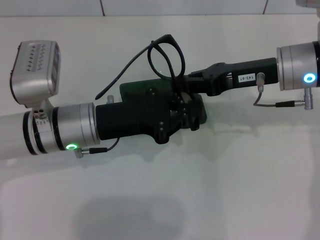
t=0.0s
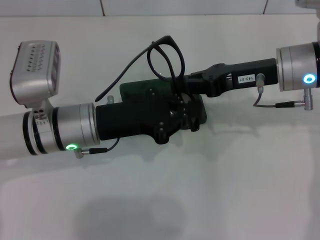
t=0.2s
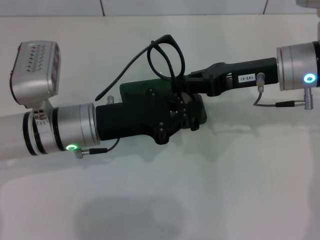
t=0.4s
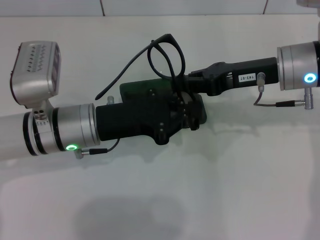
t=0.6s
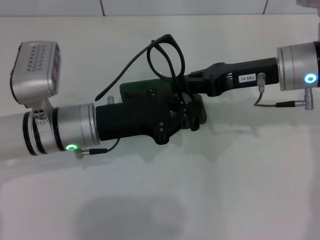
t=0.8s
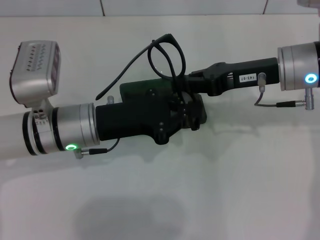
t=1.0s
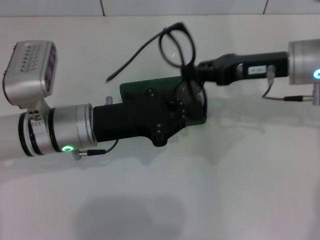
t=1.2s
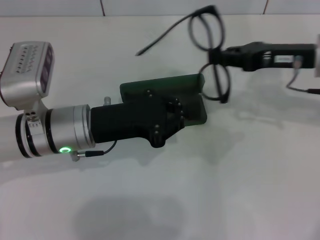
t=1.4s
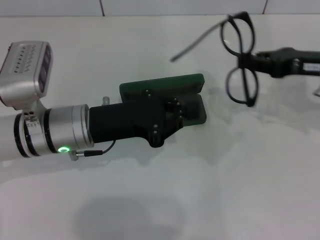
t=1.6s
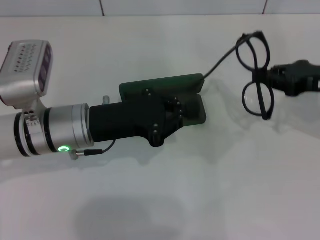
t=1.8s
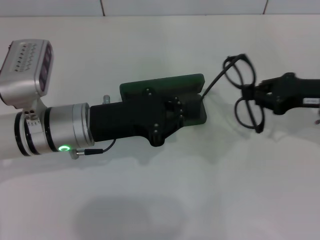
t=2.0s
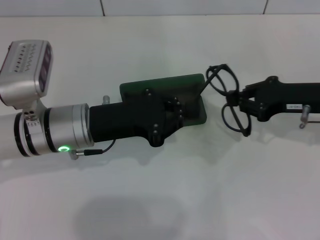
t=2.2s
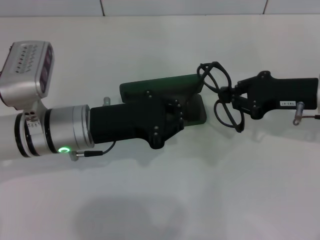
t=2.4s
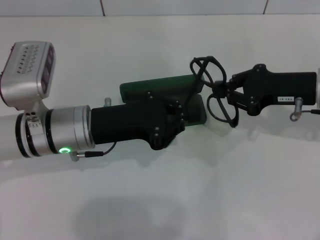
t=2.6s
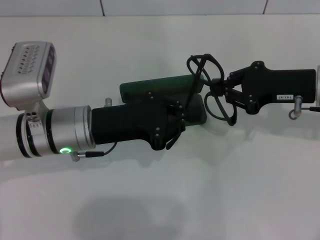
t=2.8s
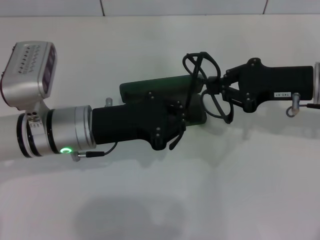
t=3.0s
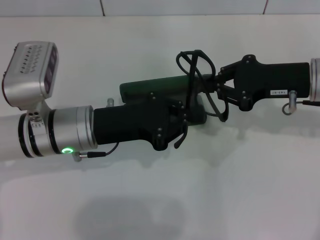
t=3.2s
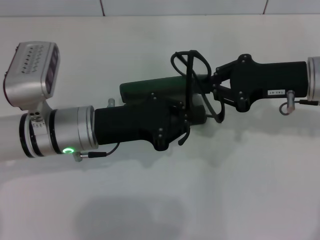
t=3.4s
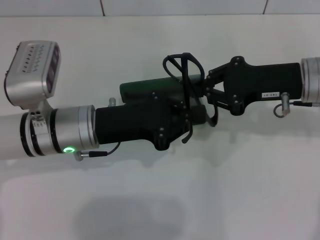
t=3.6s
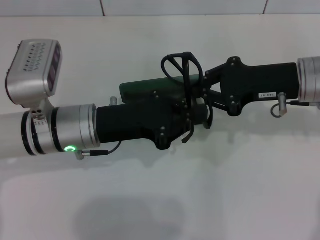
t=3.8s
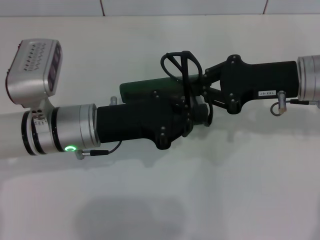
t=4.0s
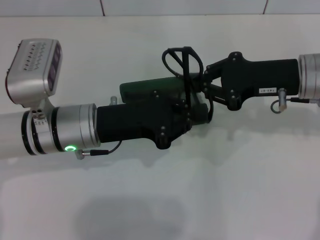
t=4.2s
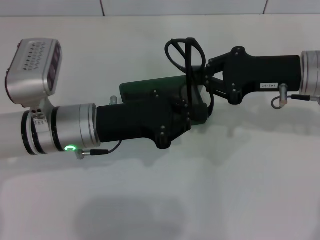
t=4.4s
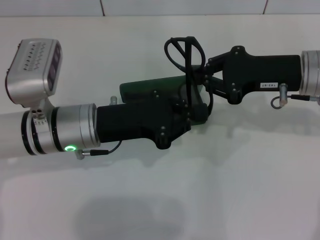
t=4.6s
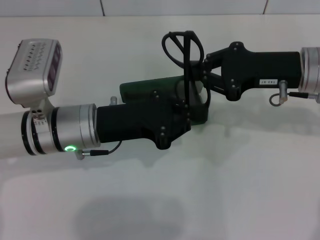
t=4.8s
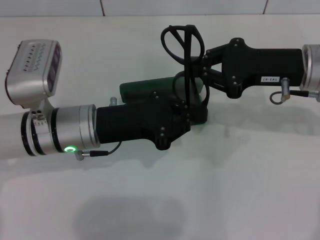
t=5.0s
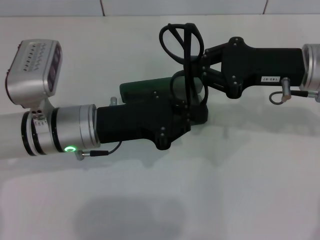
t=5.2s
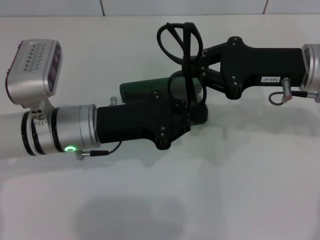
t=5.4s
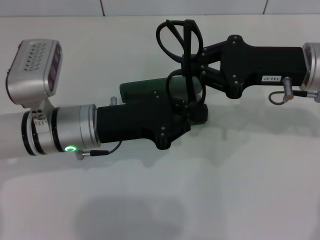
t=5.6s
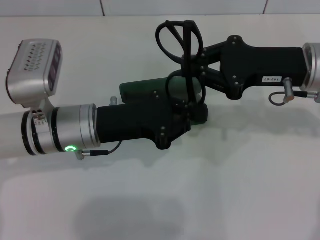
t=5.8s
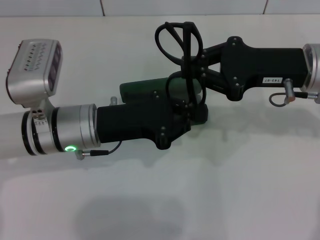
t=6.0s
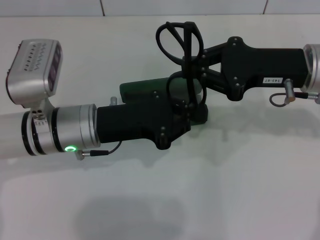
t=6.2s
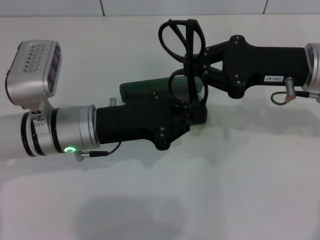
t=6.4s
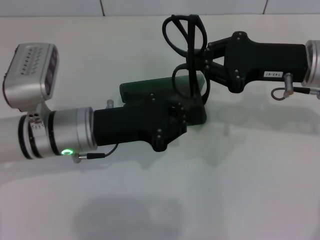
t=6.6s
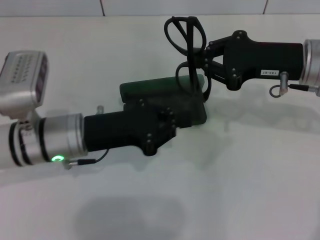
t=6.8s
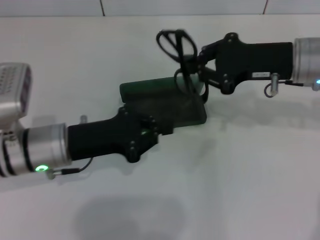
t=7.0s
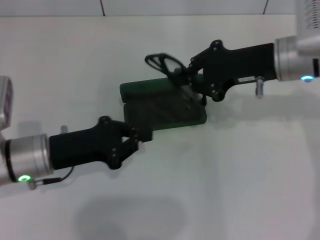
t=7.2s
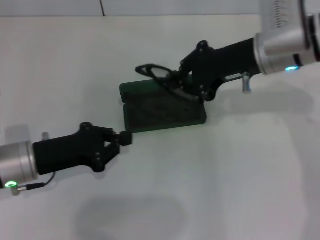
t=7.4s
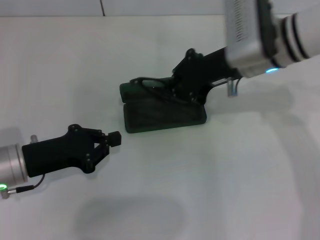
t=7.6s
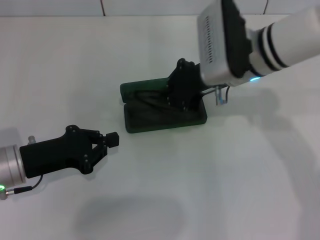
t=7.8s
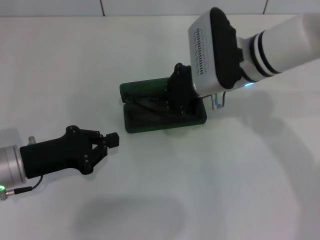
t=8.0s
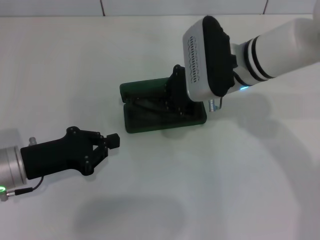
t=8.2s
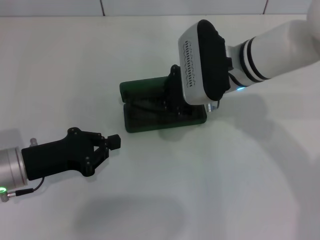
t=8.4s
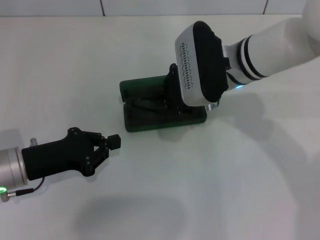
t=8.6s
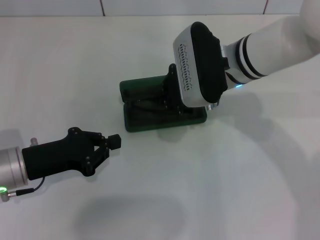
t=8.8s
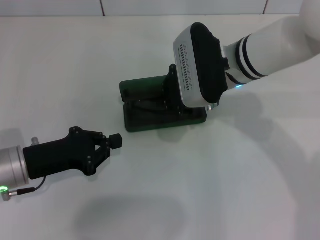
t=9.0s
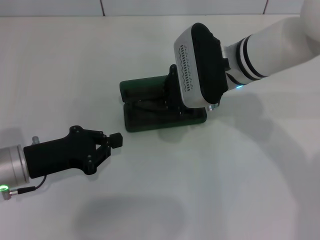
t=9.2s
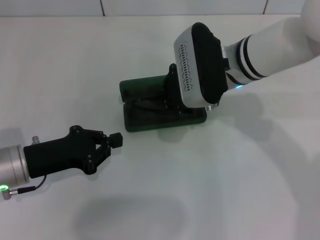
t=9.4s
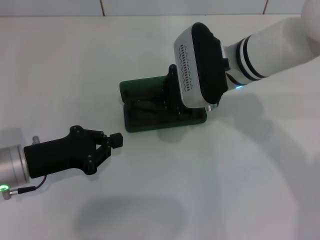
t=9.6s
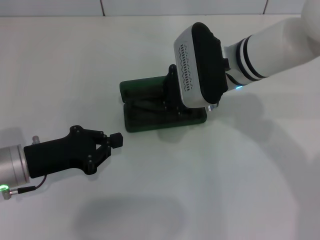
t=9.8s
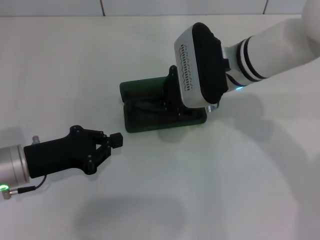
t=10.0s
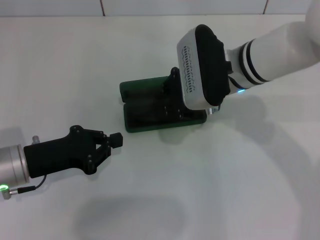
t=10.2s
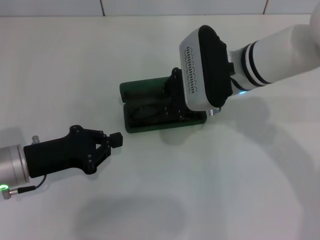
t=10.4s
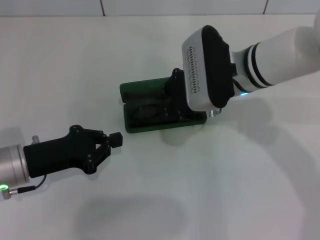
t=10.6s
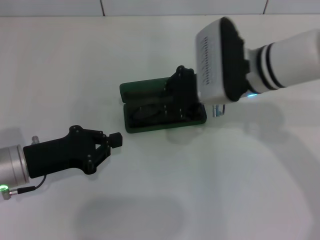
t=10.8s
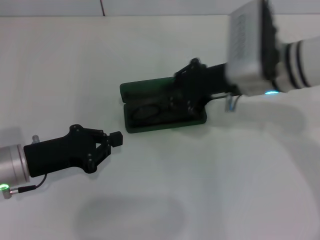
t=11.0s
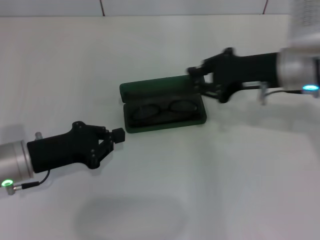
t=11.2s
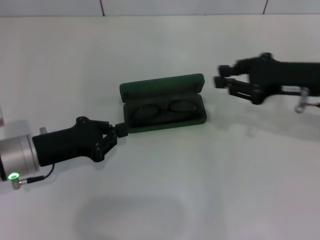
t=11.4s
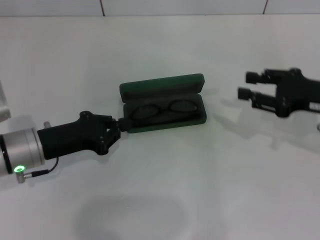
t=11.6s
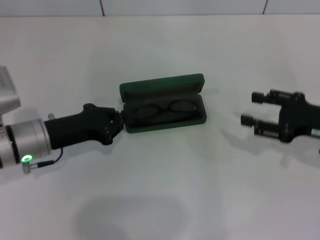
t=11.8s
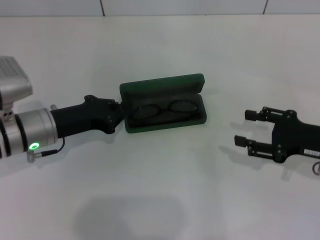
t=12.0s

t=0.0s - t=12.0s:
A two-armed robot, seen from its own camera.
Step, t=4.4s - t=10.8s: Put the glasses into the case with your right hand.
t=0.0s - t=1.6s: The right gripper shifts some 10 cm to the right.
t=1.6s - t=3.0s: The right gripper is displaced to the left by approximately 5 cm.
t=3.0s - t=6.0s: The grippers stay close to where they were, moving slightly.
t=6.0s - t=7.6s: The two grippers go some 10 cm to the left.
t=7.6s - t=9.0s: The right gripper shifts by about 5 cm.
t=9.0s - t=10.4s: Both grippers stay put.
t=10.4s - t=12.0s: The right gripper shifts about 20 cm to the right and backward, and opens; the left gripper moves forward, some 5 cm.

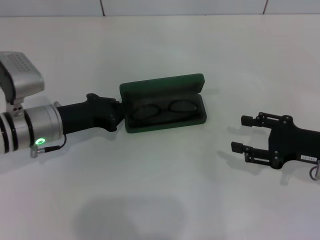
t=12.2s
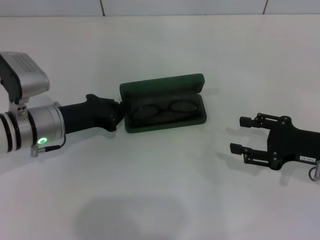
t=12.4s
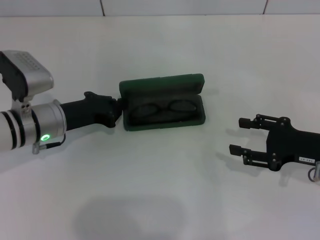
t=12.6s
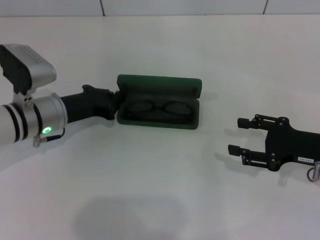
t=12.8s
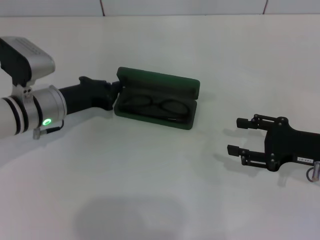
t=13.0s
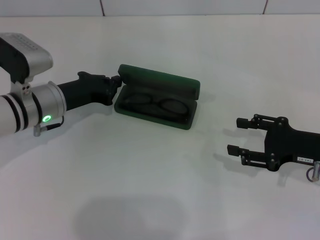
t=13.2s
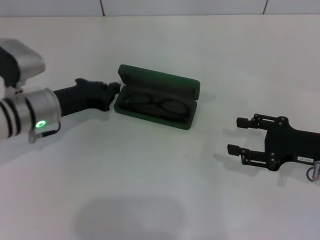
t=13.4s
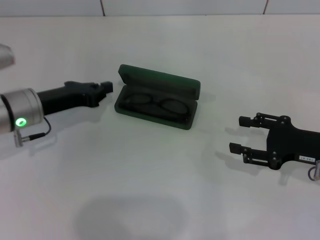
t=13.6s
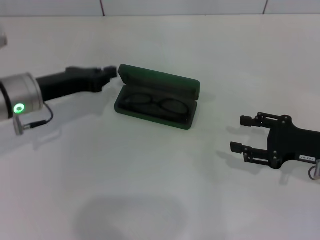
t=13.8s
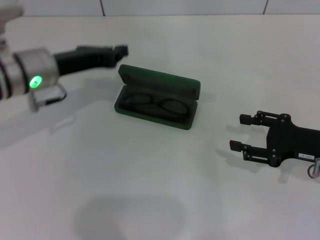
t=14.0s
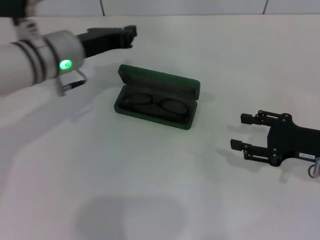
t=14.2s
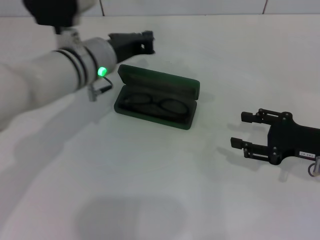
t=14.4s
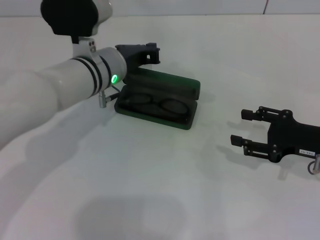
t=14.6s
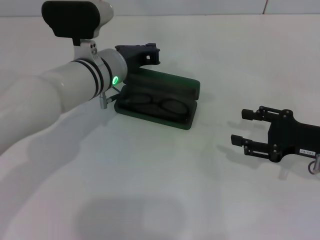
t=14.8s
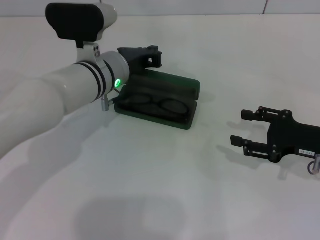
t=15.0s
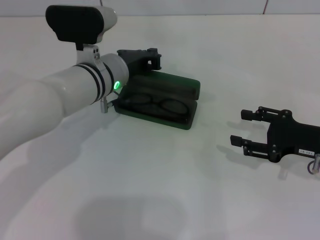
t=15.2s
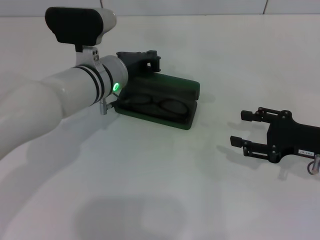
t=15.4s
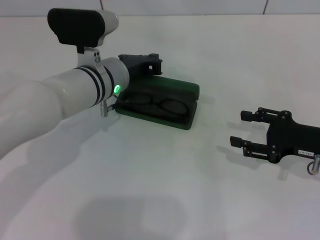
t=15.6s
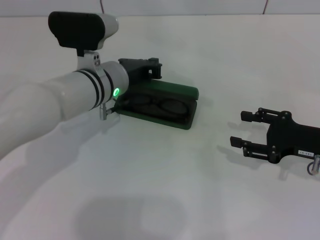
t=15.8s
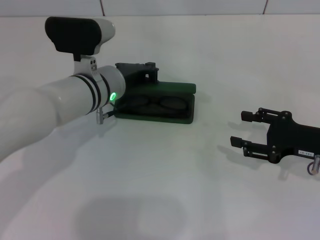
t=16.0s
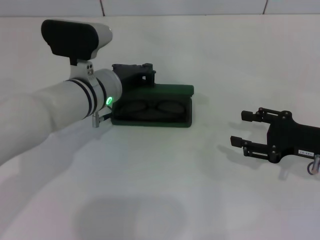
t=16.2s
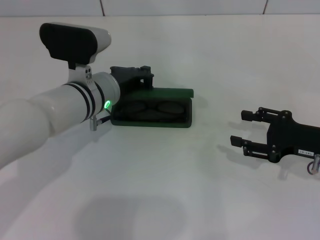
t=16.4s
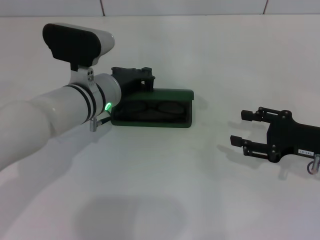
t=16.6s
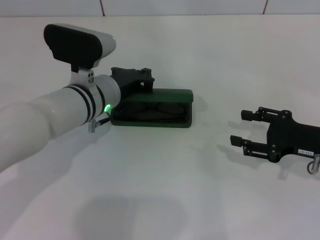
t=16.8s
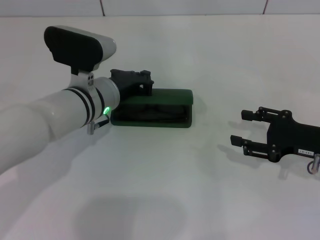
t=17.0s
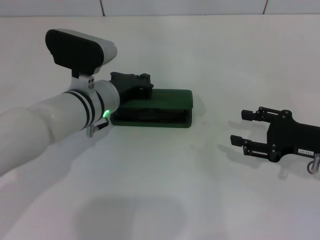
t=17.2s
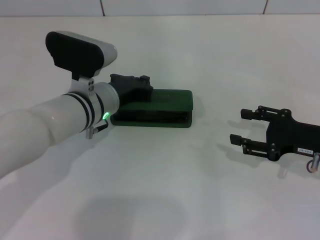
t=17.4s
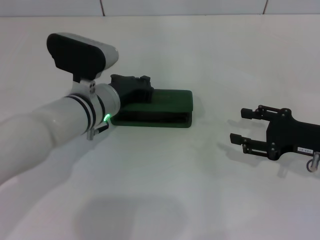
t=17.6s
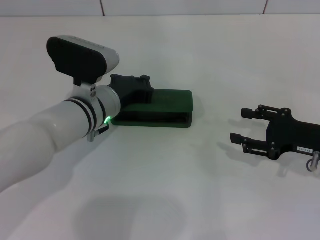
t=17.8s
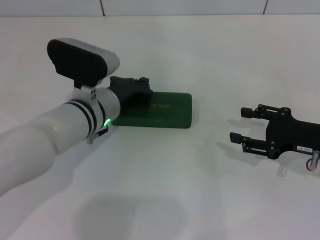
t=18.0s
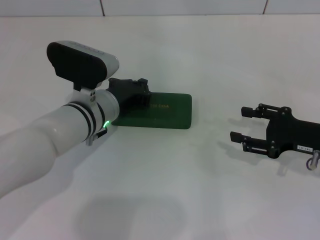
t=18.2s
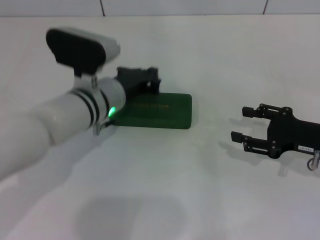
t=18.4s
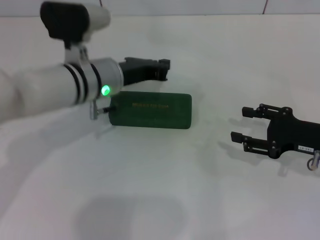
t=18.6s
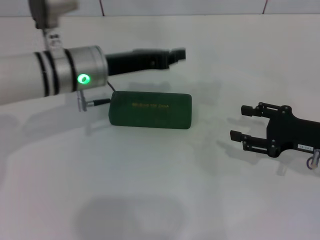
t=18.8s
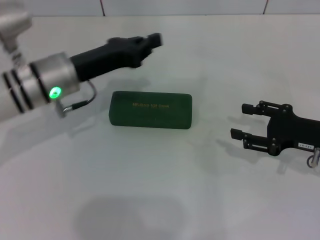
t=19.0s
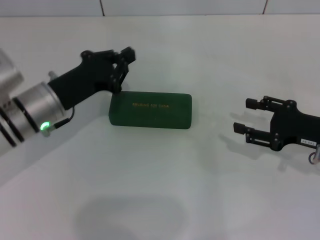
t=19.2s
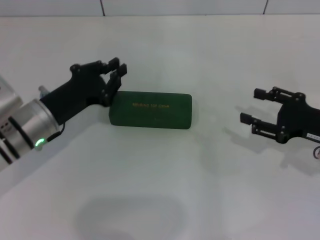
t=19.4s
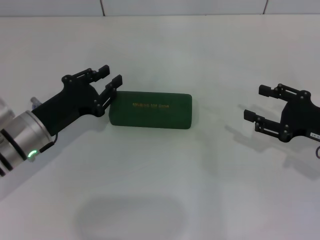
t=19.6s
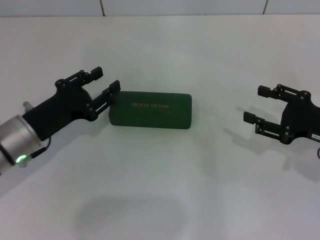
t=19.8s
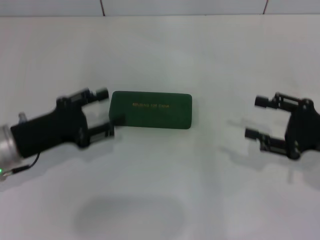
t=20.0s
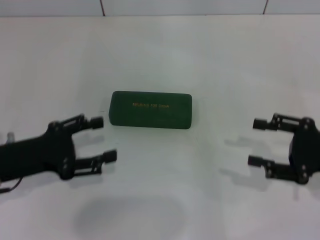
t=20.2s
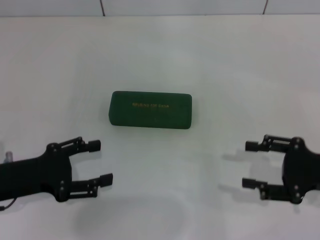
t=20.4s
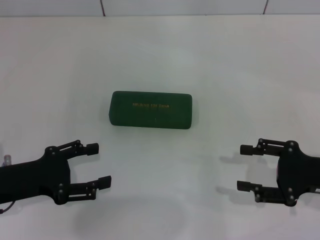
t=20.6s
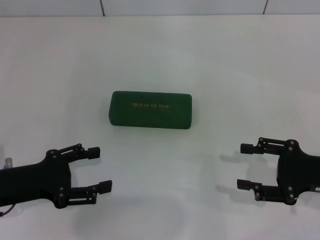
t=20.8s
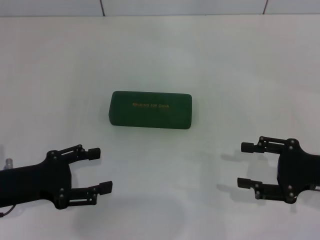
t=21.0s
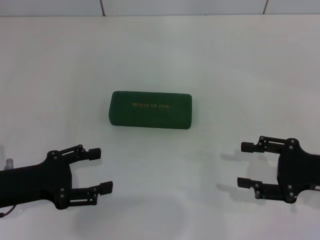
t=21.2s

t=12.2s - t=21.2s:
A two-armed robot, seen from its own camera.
Step, t=12.2s - t=18.0s: Close the glasses case with your left hand.
t=12.2s - t=13.8s: The left gripper shifts by about 5 cm.
t=13.8s - t=15.2s: The left gripper travels to the right by roughly 15 cm.
t=15.2s - t=18.2s: The grippers stay close to where they were, moving slightly.
t=18.2s - t=19.8s: The left gripper heads to the left and backward, covering some 15 cm.
t=19.8s - t=21.2s: The left gripper travels backward by roughly 5 cm, and opens up.

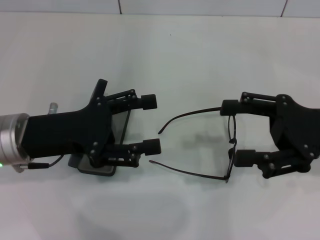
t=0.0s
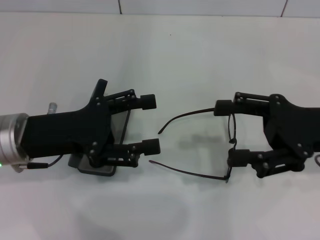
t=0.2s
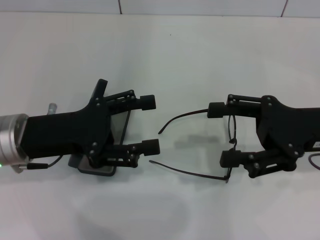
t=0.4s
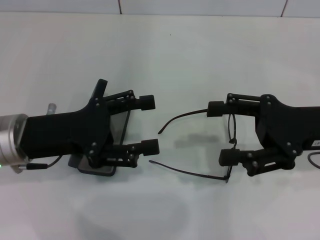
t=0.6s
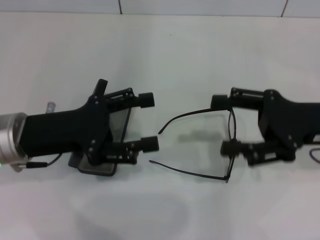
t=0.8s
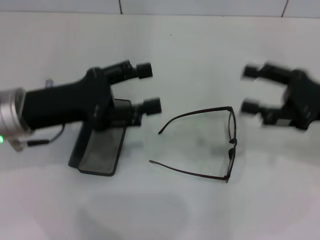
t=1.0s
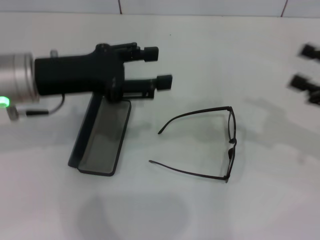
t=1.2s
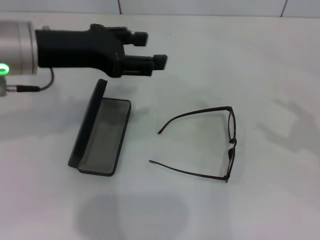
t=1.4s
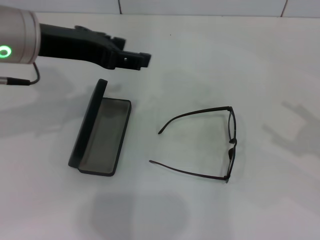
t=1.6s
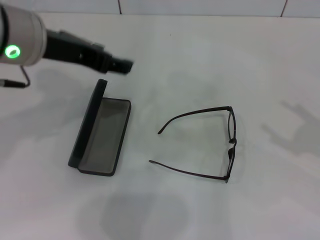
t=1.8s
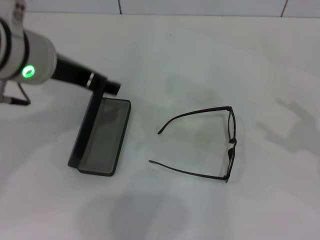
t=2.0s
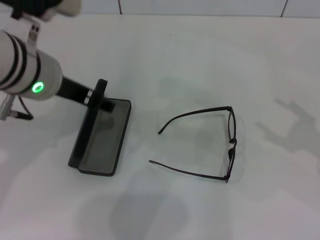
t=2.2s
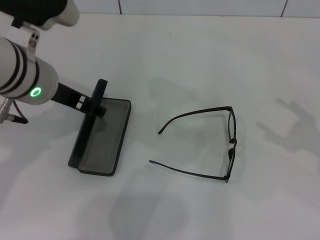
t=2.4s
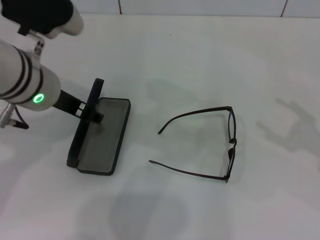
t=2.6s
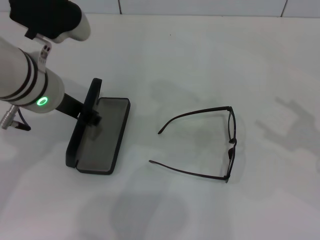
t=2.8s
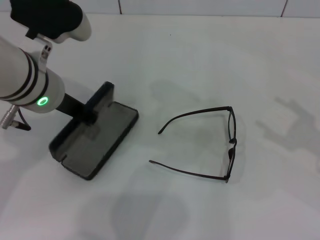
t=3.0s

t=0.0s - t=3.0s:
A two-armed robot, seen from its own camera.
Step, t=0.0s - t=3.0s: Grab the glasses case with your left hand.
t=0.0s - t=1.6s: The right gripper goes roughly 15 cm to the right and backward, while the left gripper is displaced upward and forward by about 15 cm.
t=1.6s - t=3.0s: The left gripper heads downward, covering about 5 cm, and closes up.
